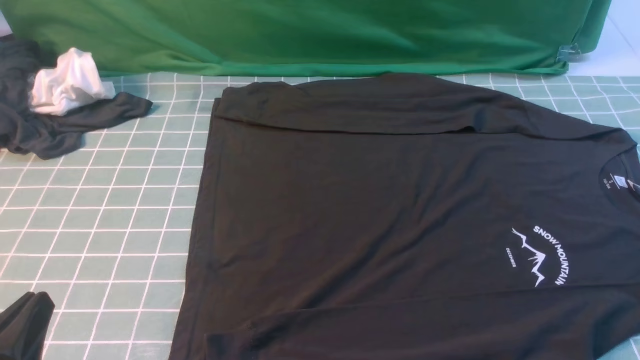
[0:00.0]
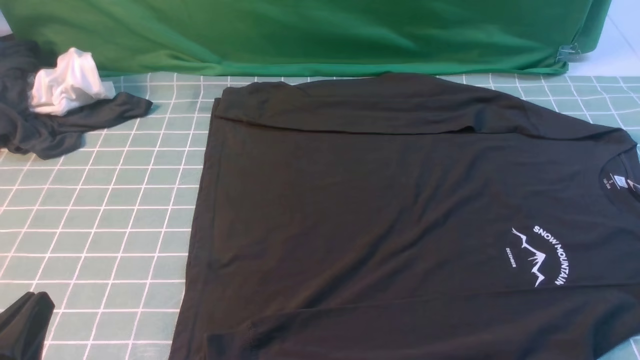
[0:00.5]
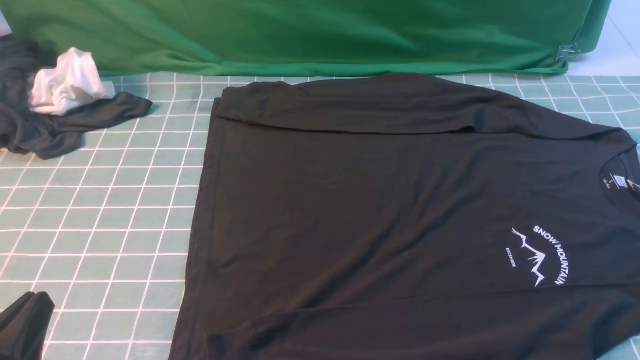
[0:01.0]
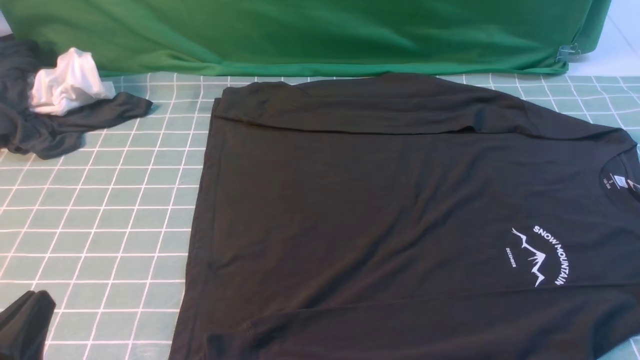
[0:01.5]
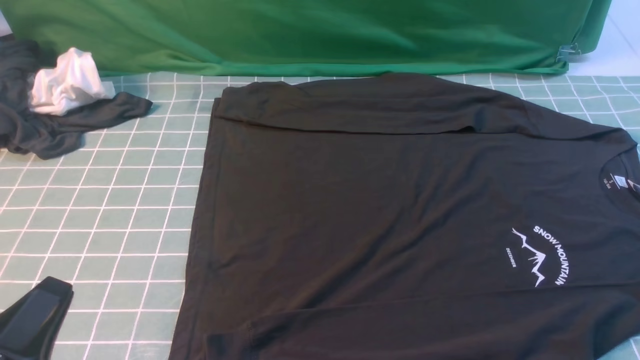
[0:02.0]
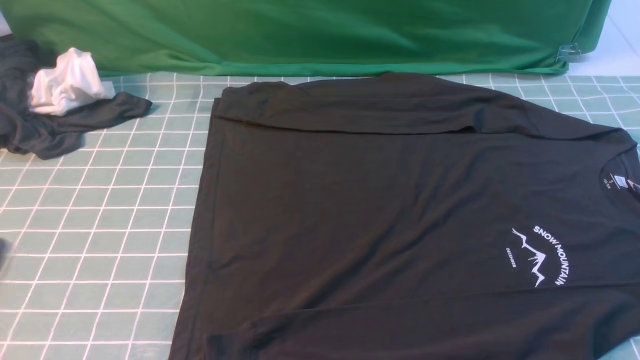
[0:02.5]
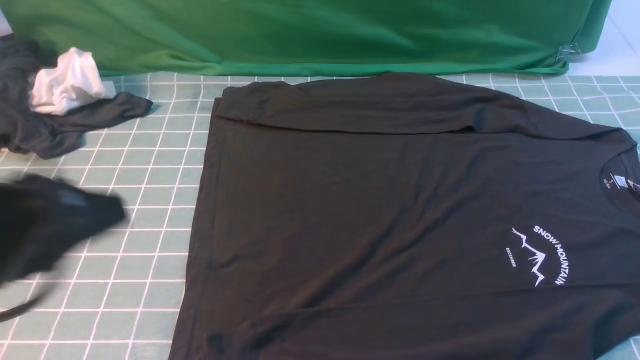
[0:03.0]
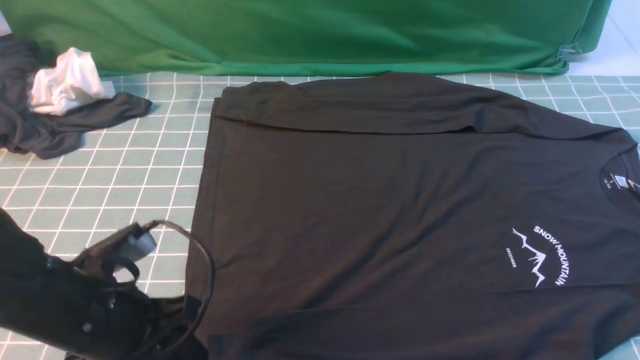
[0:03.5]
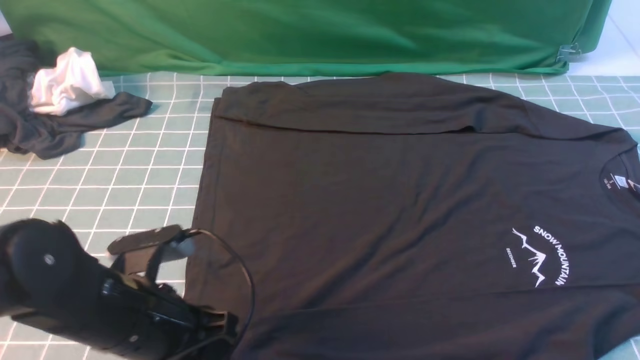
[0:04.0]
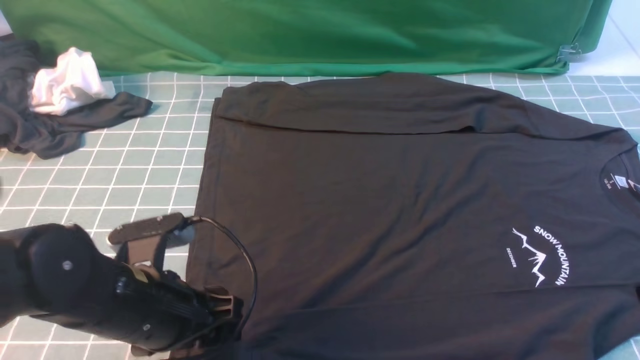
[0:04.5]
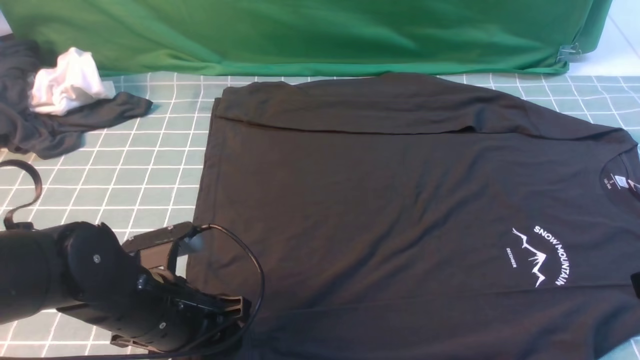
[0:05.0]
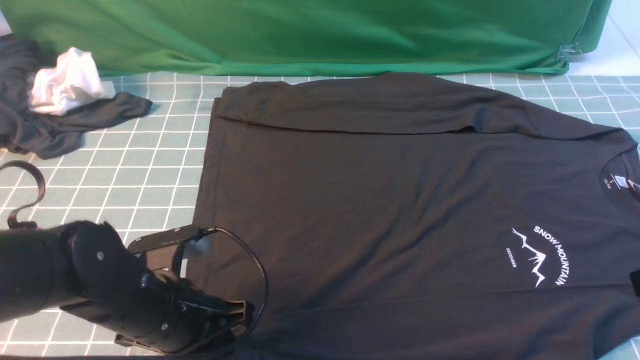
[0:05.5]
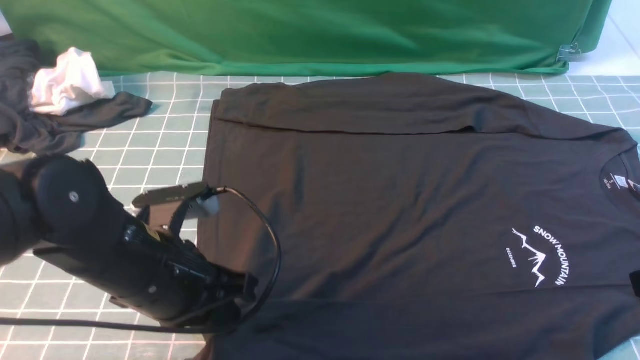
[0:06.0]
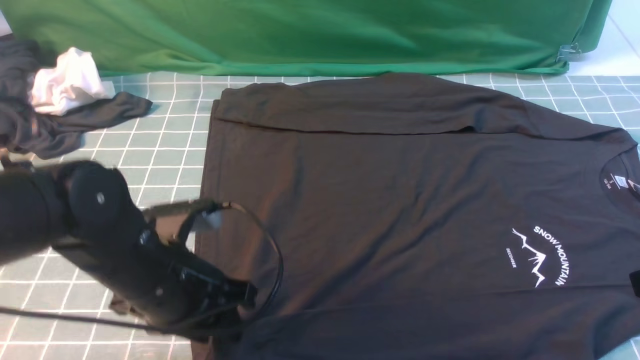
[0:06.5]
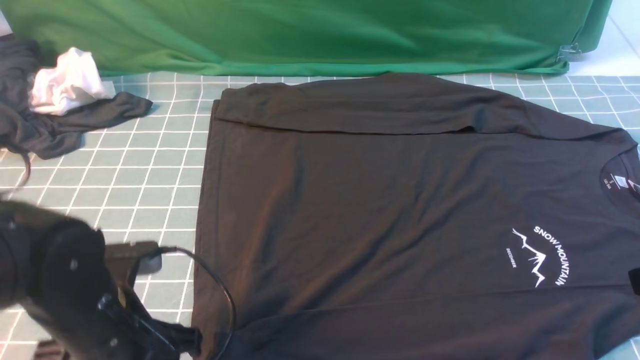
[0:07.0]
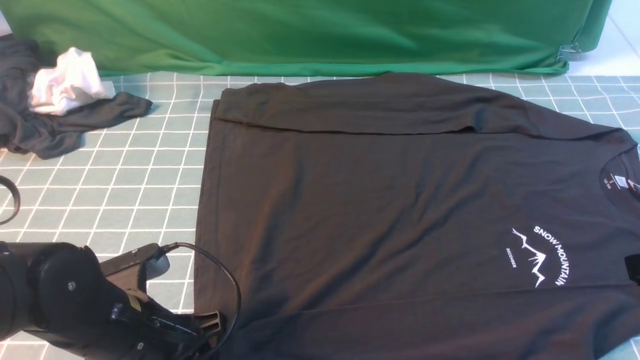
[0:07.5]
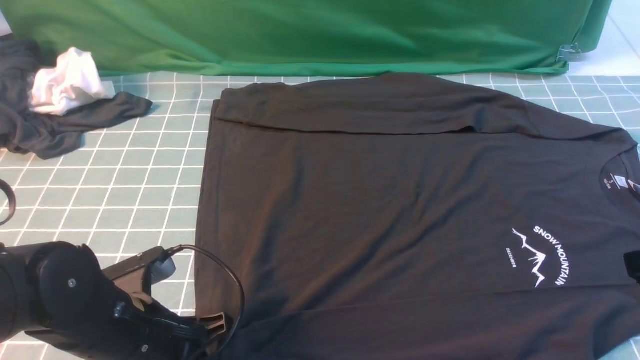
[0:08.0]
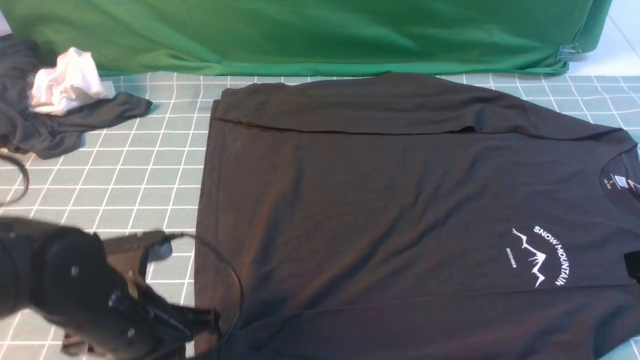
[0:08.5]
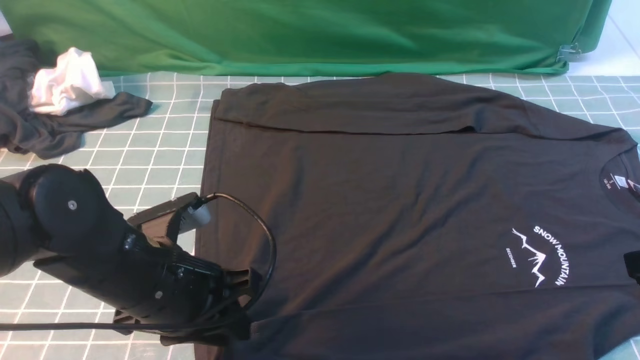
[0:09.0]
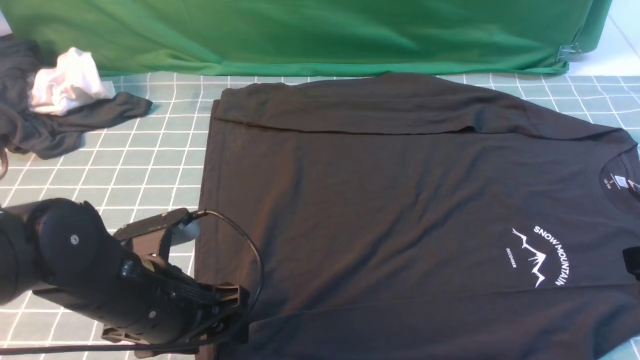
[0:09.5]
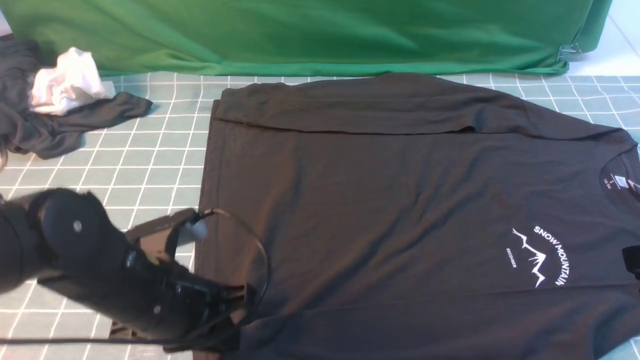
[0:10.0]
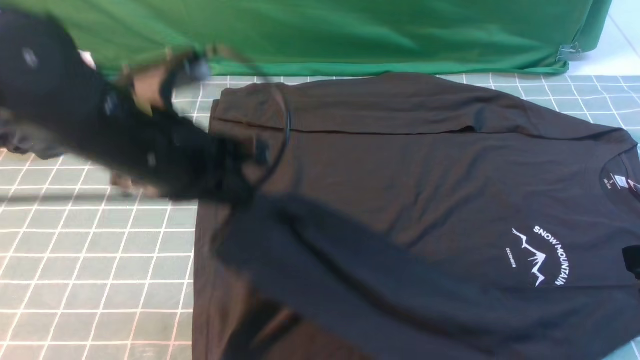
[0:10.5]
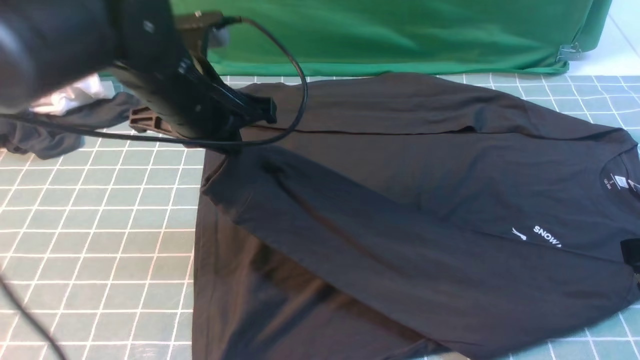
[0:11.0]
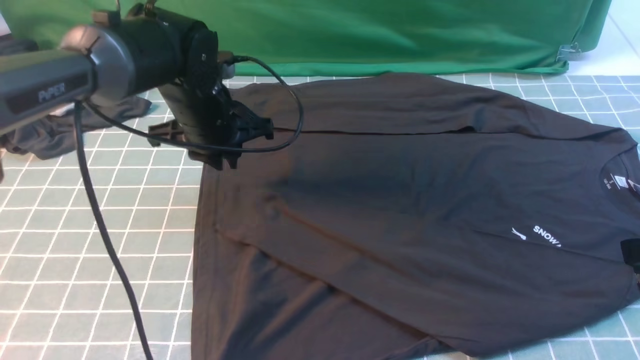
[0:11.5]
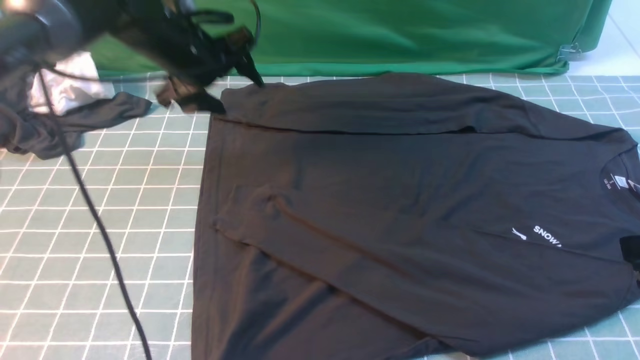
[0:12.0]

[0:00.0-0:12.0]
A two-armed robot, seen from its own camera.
Step, 0:00.0 to 0:09.5: use the left arm to clamp the cuff closest to it.
Step, 0:10.0 to 0:11.5: use the left arm to drag and place the cuff at the centered position on the left edge of the fabric.
0:02.0 to 0:04.0: The left gripper is displaced forward and to the right by about 15 cm, moves about 15 cm upward and comes back, and opens its fingers.
0:04.0 to 0:06.0: The left gripper closes its fingers.
0:06.0 to 0:08.0: The left gripper shifts by roughly 5 cm, and opens, then closes again.
0:08.0 to 0:10.0: The left gripper ends up approximately 5 cm from where it was, and opens, then closes again.
0:10.0 to 0:12.0: The left gripper goes approximately 25 cm forward, and opens.

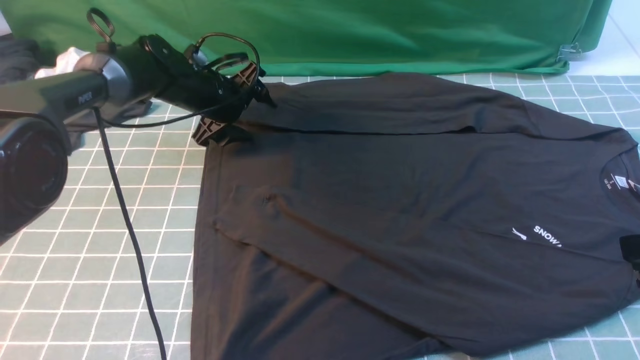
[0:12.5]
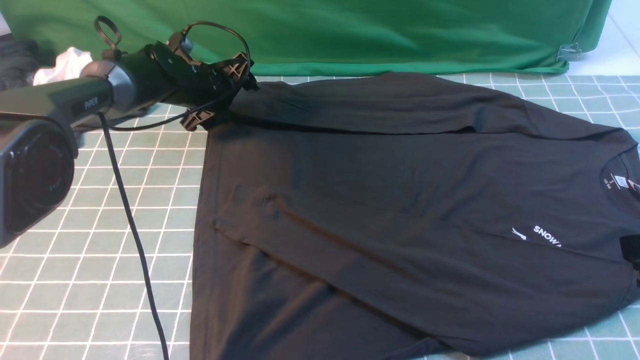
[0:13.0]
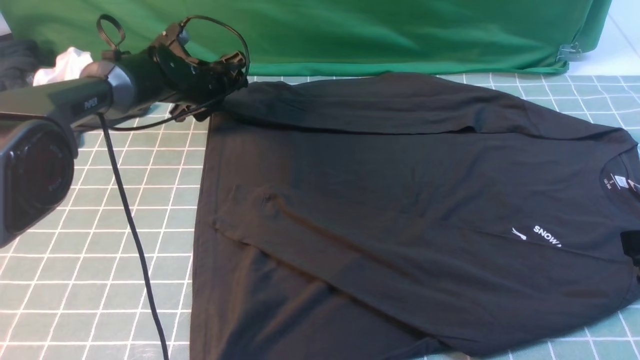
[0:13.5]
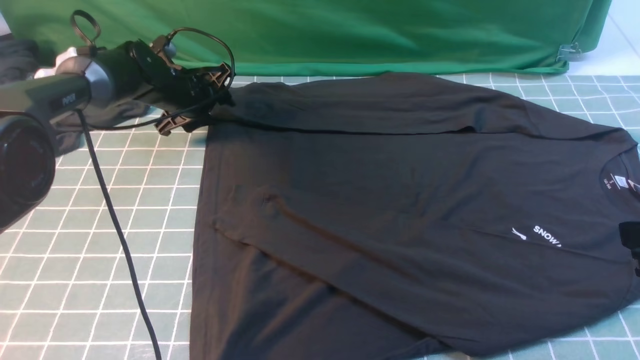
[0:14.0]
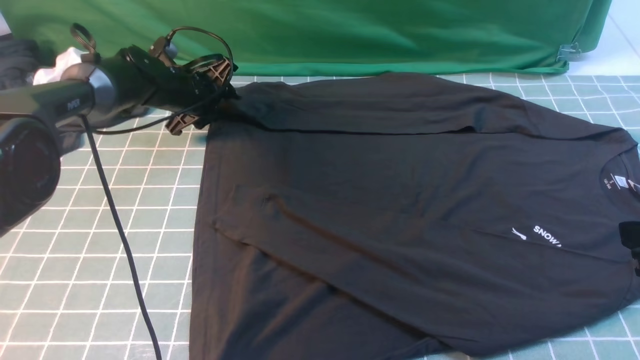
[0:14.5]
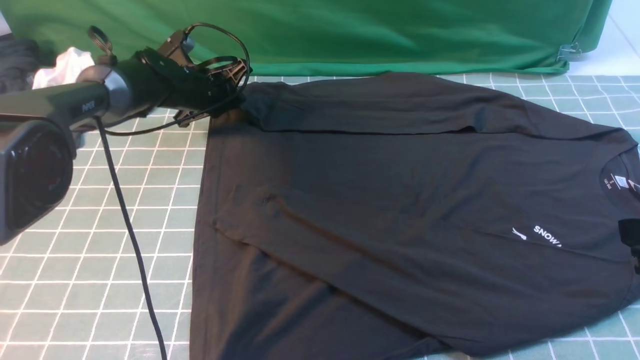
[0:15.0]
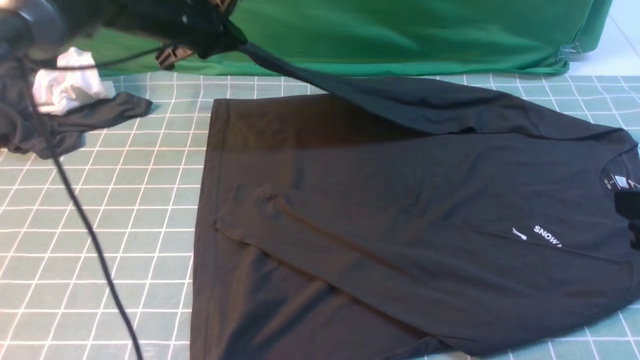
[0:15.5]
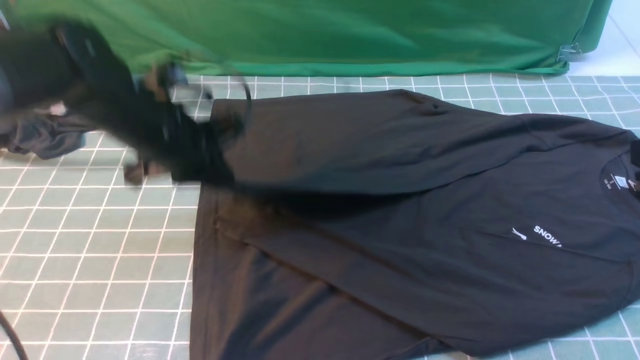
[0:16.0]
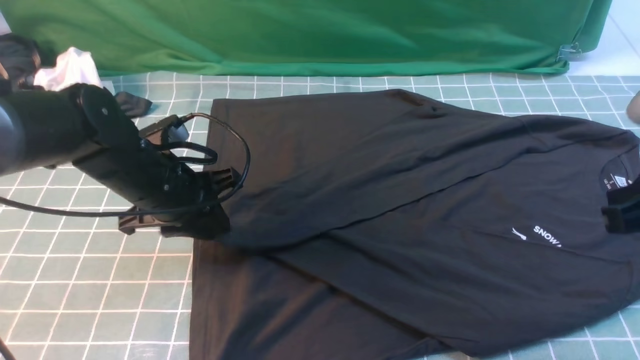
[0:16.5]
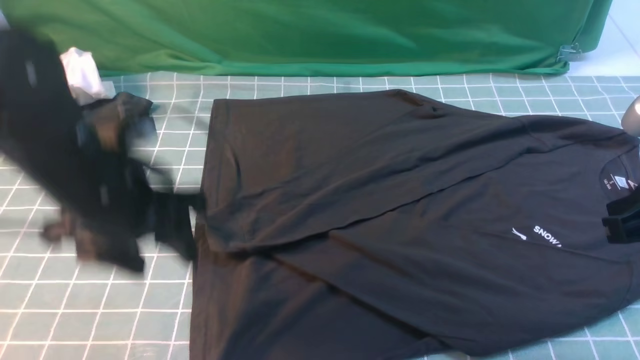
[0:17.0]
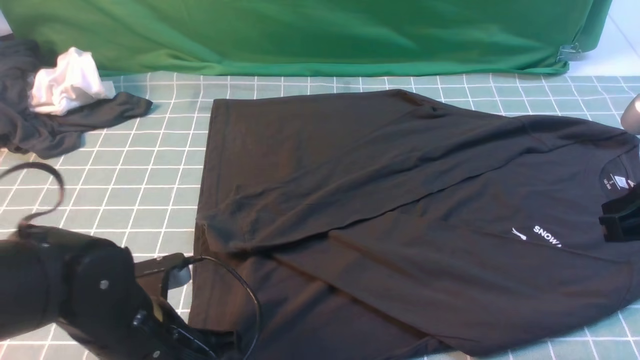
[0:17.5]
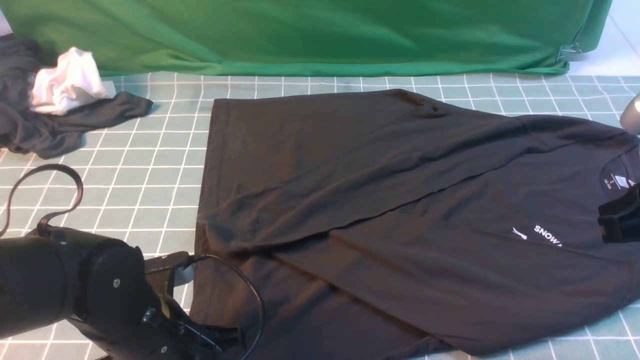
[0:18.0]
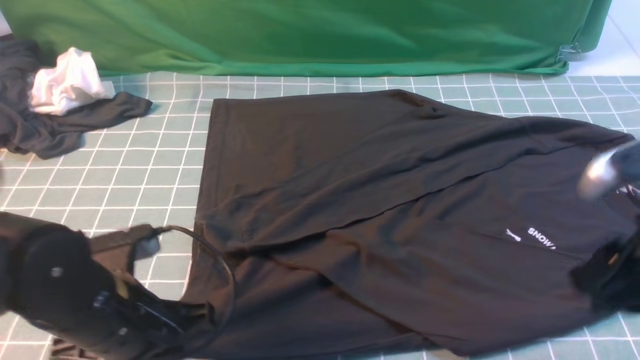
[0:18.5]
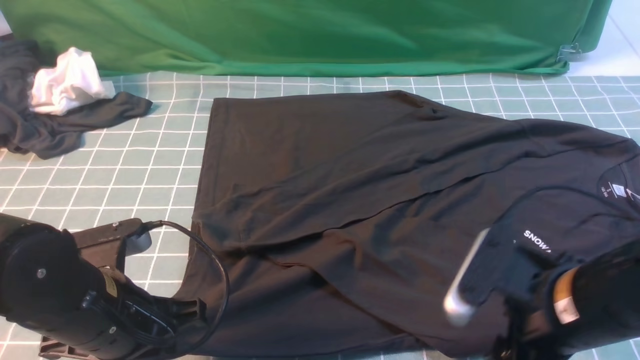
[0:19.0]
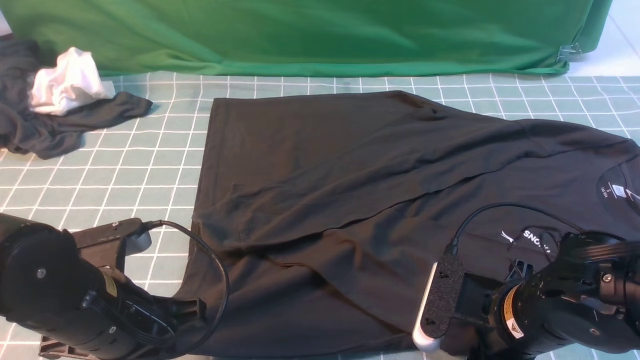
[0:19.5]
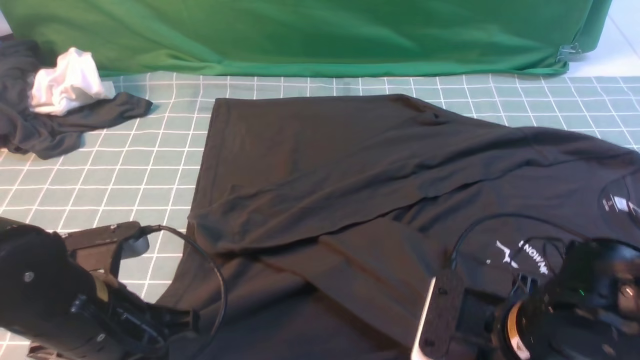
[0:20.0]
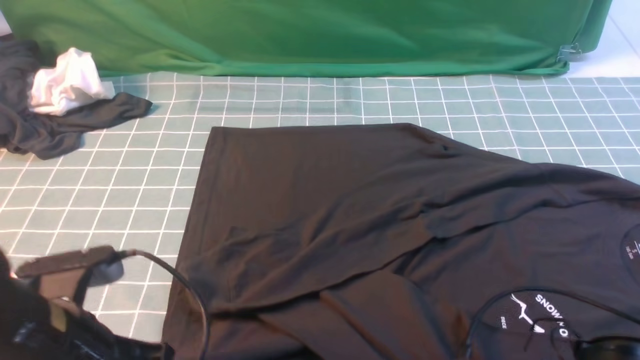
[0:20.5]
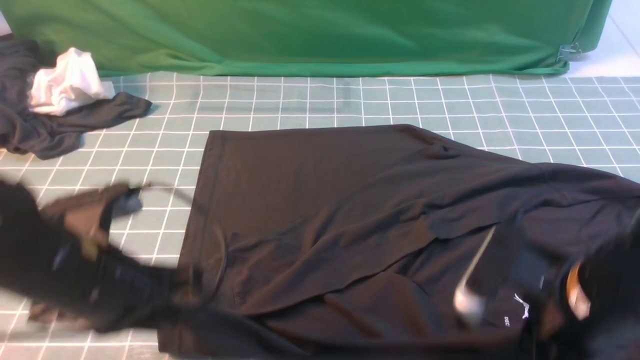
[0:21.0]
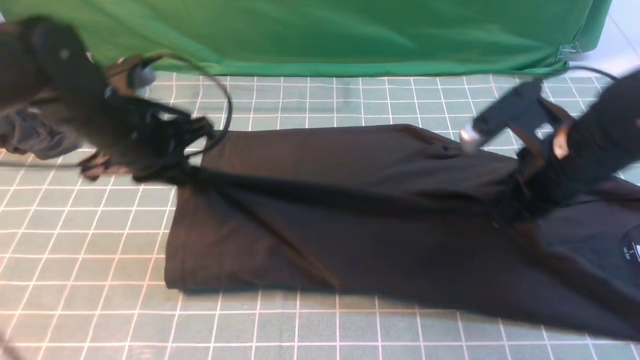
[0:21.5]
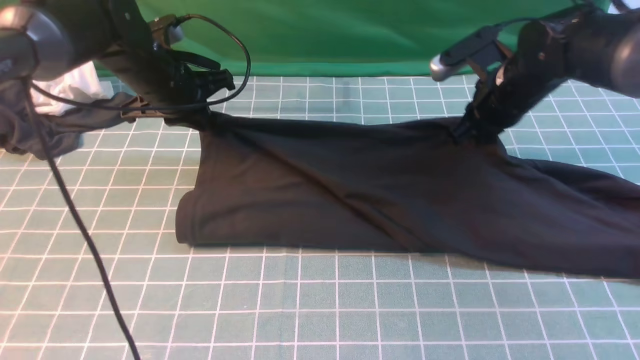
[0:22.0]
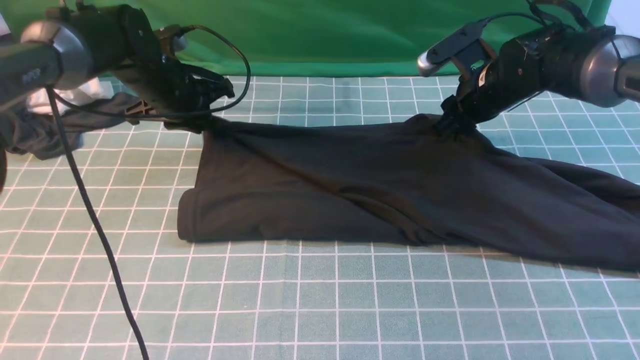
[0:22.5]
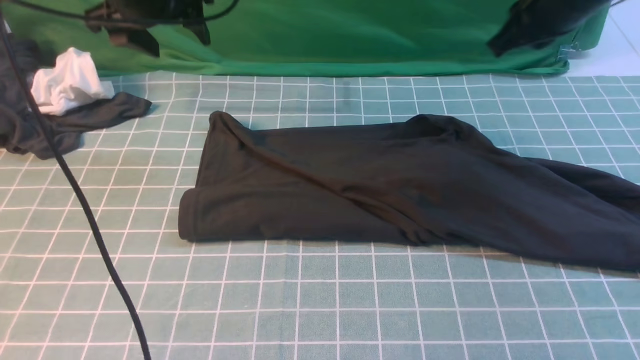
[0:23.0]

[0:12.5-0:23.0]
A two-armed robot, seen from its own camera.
Step, 0:12.5 to 0:15.0: use the left arm to clamp the cuff farthest from it.
Step, 0:15.5 to 0:16.5: use the left arm to drag and drop the cuff onto the cuff closest to the left arm.
Step, 0:17.0 to 0:20.5: use both arms simultaneously to clamp the lower edge of the clothing fabric.
0:12.5 to 0:14.5: The left gripper closes its fingers.
0:14.5 to 0:16.5: The left gripper goes some 20 cm backward, and closes and opens again; the right gripper closes up.
0:16.5 to 0:19.0: The left gripper shifts approximately 15 cm backward, and closes up. The right gripper heads downward and to the left, covering some 15 cm, and opens its fingers.
0:19.0 to 0:21.0: The left gripper is displaced upward by approximately 5 cm, while the right gripper goes backward and returns, about 10 cm each way, and closes its fingers.
0:21.0 to 0:23.0: The left gripper shifts about 25 cm forward, and opens its fingers; the right gripper heads forward and upward, covering approximately 25 cm, and opens and closes again.
